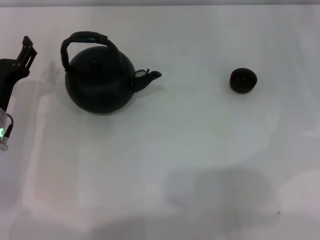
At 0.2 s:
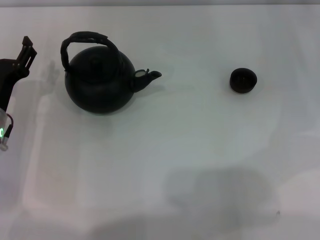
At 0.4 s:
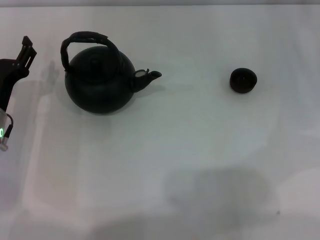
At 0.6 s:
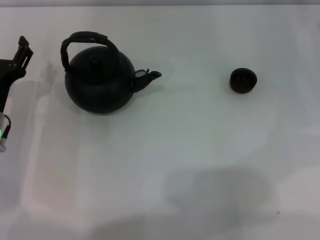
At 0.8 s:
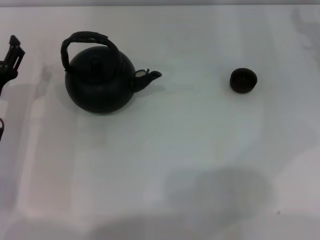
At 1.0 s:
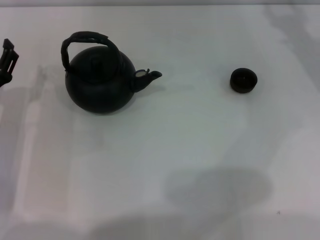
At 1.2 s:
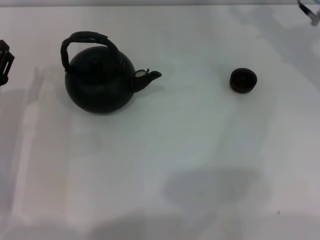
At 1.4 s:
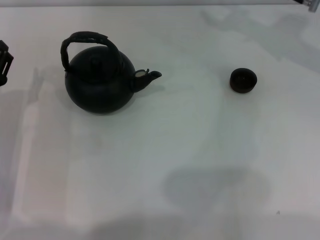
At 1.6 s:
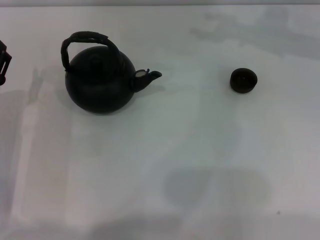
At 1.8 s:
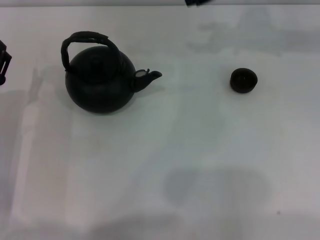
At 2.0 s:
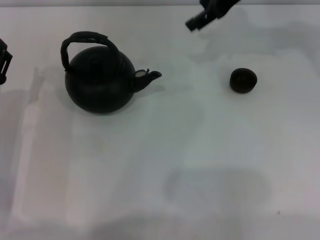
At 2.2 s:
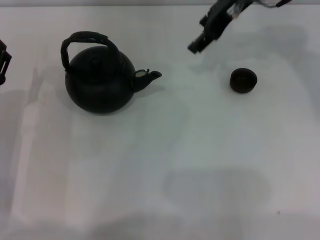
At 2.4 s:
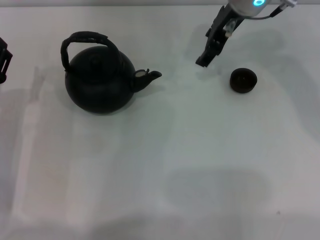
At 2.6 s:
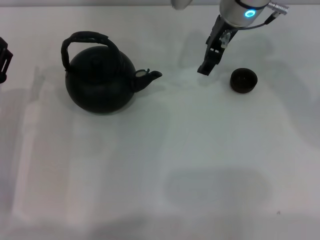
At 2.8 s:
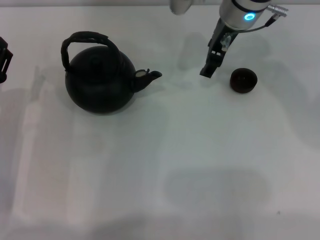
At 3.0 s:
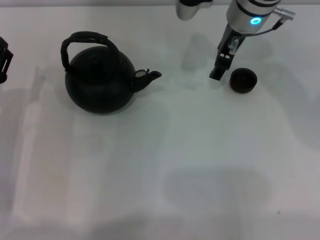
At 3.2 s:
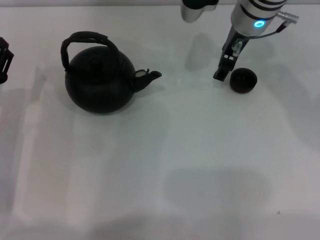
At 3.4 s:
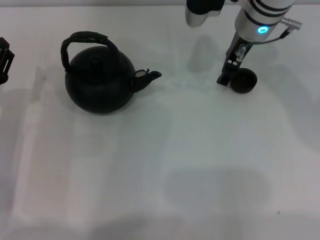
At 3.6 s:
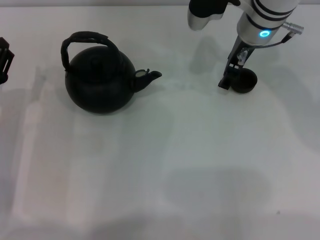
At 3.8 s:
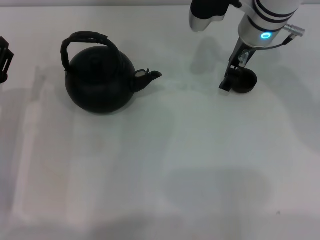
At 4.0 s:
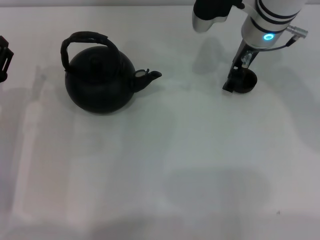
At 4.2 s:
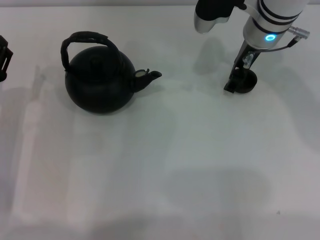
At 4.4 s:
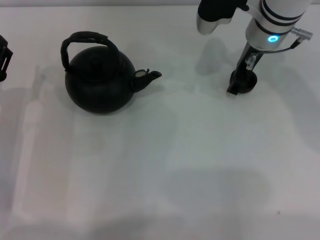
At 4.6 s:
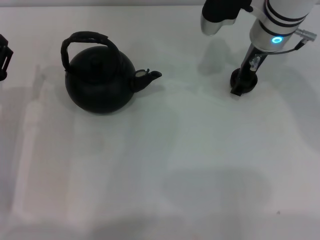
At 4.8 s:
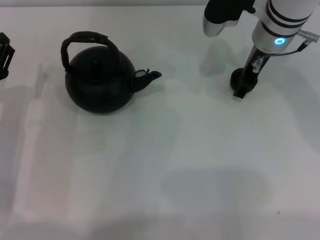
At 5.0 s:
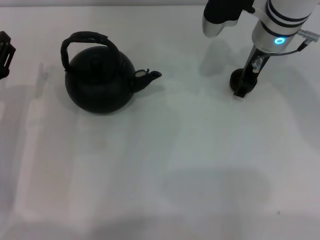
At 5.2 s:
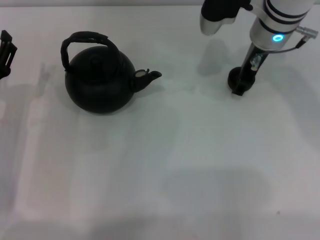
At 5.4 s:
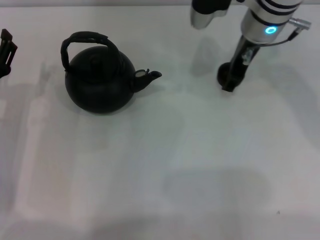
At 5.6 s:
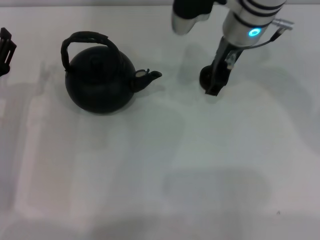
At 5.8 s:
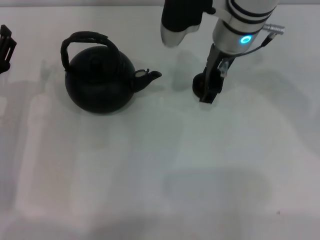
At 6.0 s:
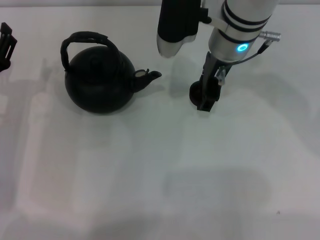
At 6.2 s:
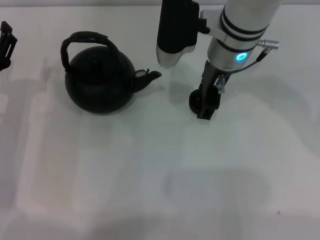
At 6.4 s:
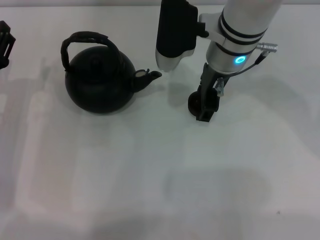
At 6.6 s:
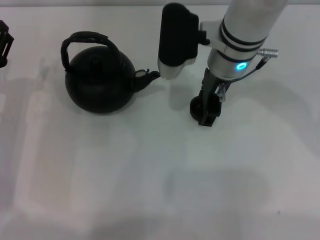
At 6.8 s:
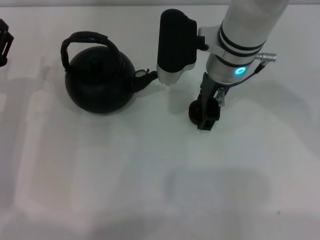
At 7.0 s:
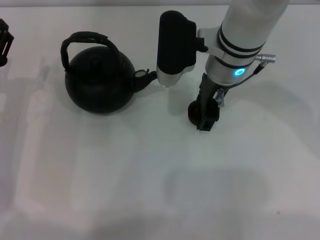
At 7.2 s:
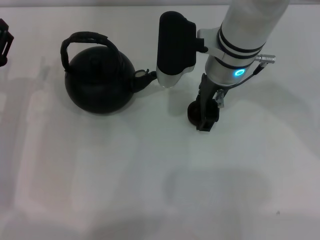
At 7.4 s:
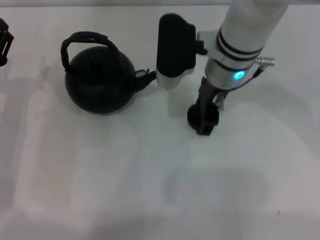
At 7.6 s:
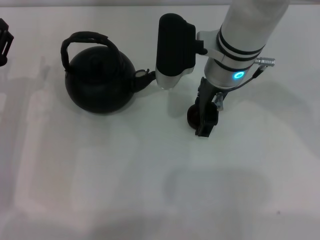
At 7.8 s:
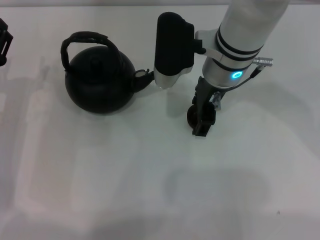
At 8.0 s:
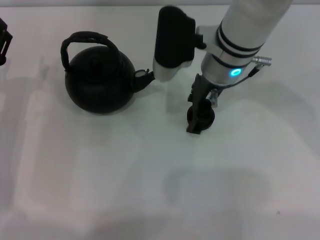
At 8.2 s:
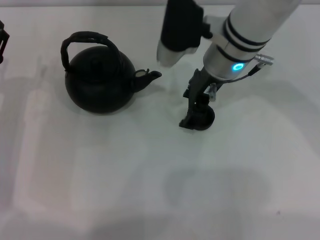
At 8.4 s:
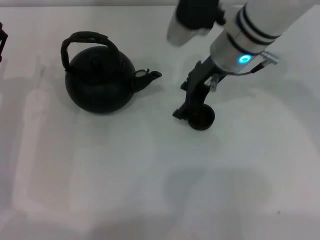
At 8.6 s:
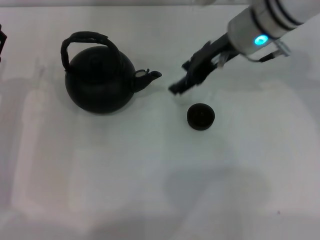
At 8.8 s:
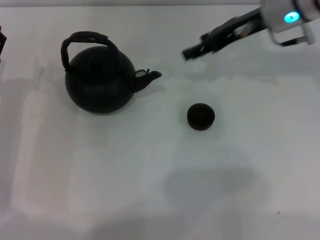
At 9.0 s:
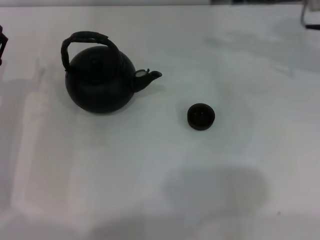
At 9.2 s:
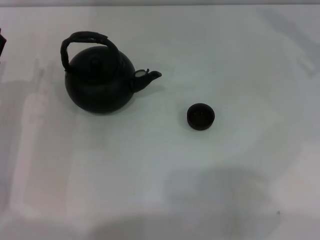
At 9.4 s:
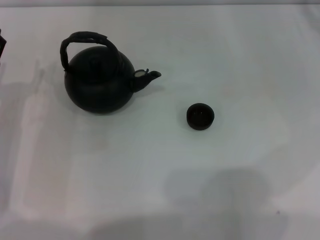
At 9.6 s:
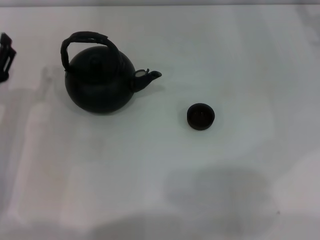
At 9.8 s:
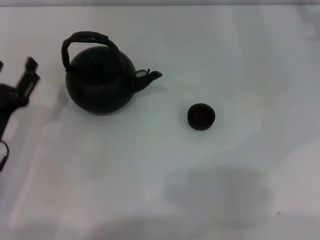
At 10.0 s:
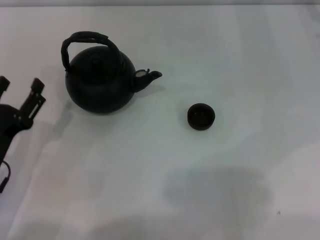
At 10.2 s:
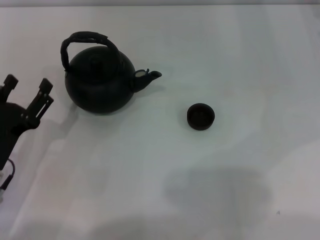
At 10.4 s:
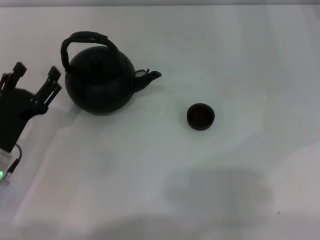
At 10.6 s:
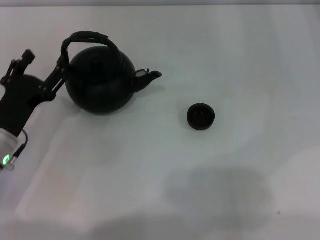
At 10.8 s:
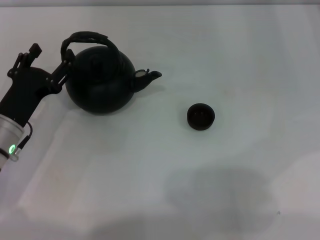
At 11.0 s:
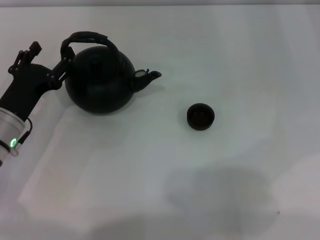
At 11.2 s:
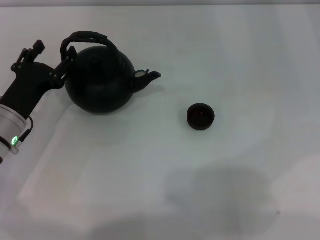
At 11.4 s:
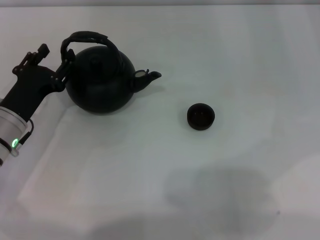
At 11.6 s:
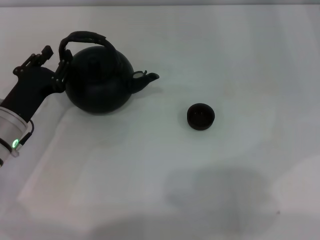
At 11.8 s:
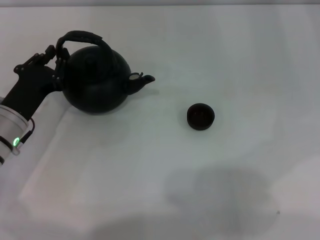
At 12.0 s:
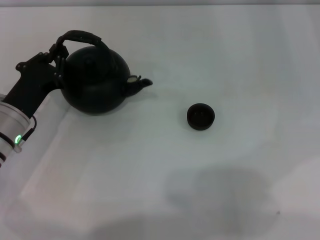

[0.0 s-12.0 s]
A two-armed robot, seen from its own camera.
Task of the whole recording: Grasp the handle of the teapot with one hand and pour tea into the teacup.
Step, 0.0 to 5.2 s: Pick up the teacup with the right gripper.
Step, 5.4 to 8.4 s: Place the teacup in the center of view with the right gripper.
1.6 to 3.0 s: The right gripper travels to the left by some 10 cm.
3.0 to 4.4 s: The grippers move only a little.
4.4 to 6.0 s: The right gripper is displaced to the left by approximately 5 cm.
6.0 to 7.6 s: The grippers stay close to where they were, moving slightly.
7.6 to 9.0 s: The right gripper goes some 15 cm to the right.
9.0 to 10.4 s: The left gripper heads backward, covering roughly 5 cm, while the right gripper shifts roughly 10 cm to the right and downward.
10.4 to 12.0 s: The left gripper heads forward, covering about 5 cm, and closes up.

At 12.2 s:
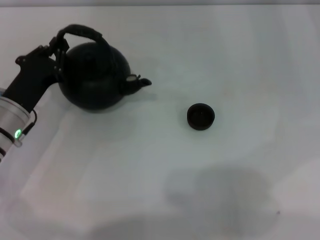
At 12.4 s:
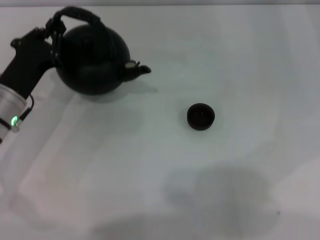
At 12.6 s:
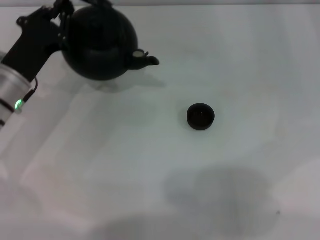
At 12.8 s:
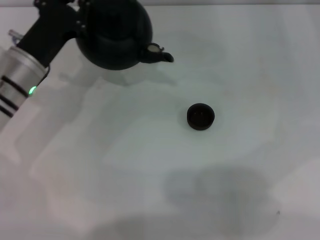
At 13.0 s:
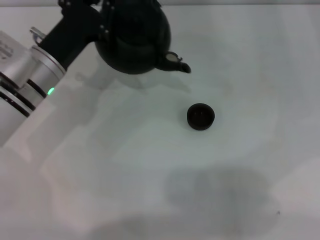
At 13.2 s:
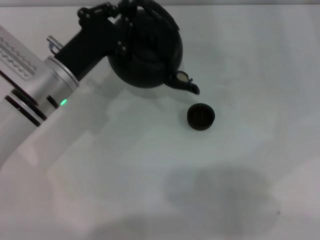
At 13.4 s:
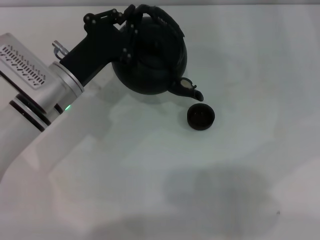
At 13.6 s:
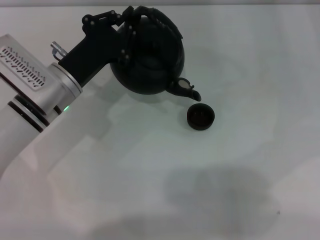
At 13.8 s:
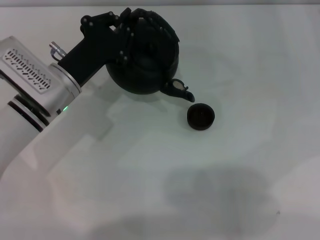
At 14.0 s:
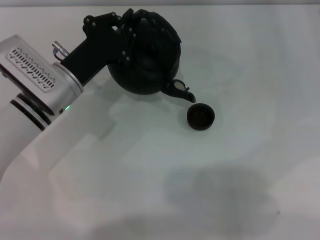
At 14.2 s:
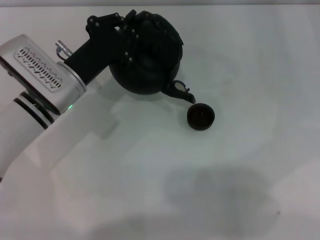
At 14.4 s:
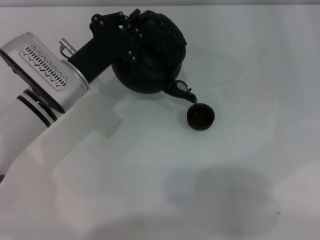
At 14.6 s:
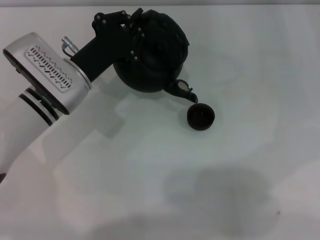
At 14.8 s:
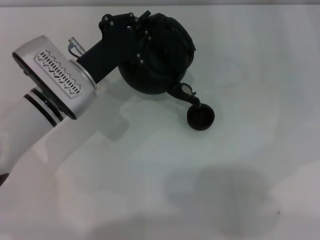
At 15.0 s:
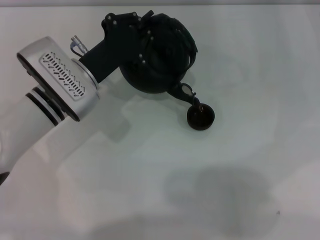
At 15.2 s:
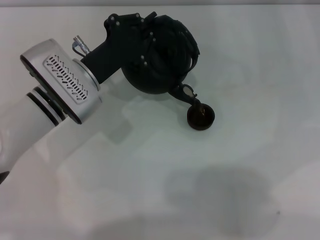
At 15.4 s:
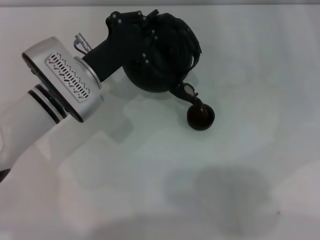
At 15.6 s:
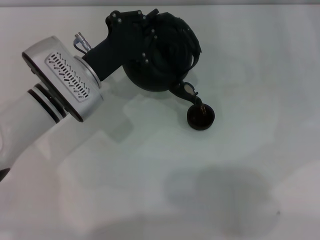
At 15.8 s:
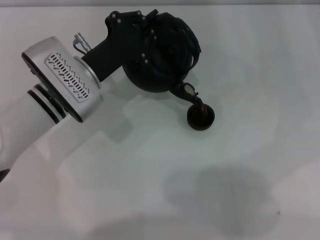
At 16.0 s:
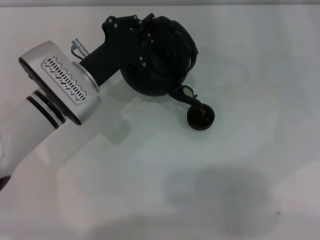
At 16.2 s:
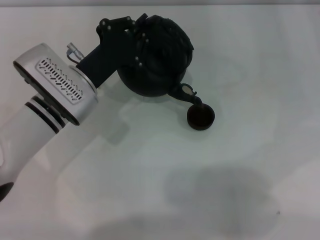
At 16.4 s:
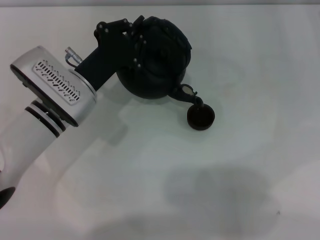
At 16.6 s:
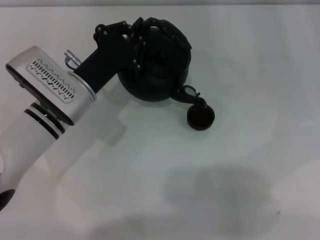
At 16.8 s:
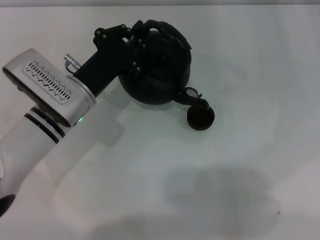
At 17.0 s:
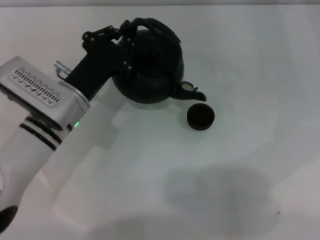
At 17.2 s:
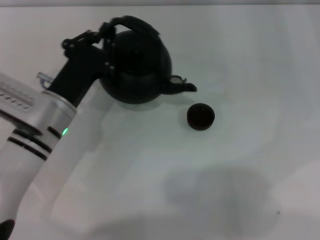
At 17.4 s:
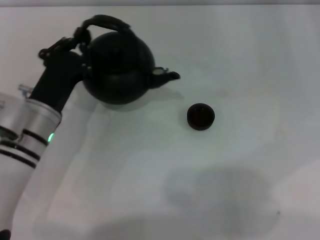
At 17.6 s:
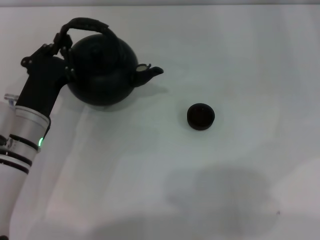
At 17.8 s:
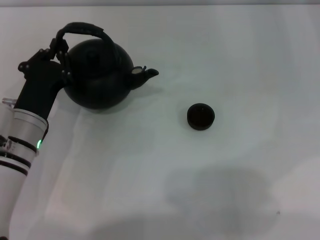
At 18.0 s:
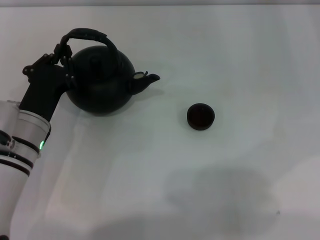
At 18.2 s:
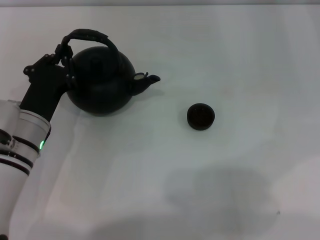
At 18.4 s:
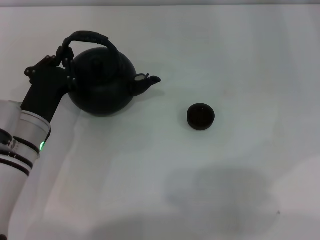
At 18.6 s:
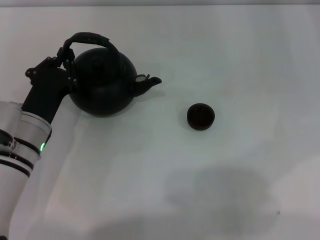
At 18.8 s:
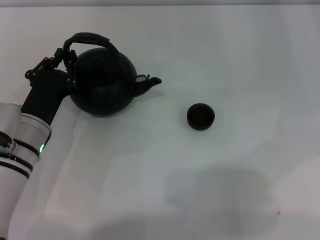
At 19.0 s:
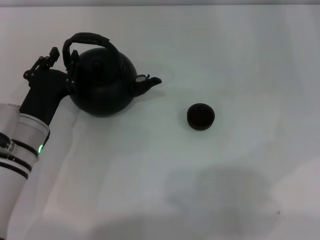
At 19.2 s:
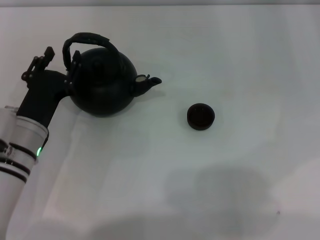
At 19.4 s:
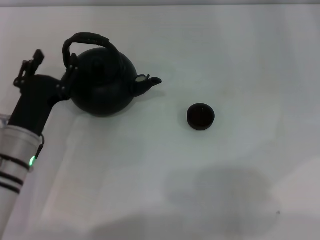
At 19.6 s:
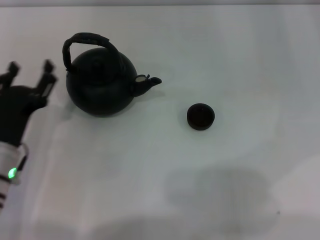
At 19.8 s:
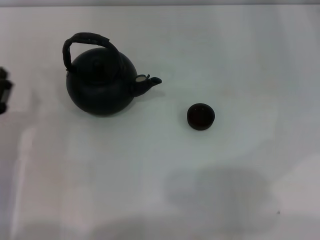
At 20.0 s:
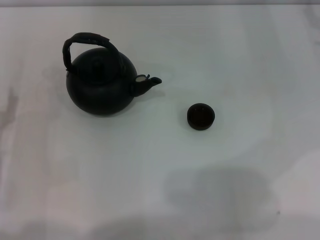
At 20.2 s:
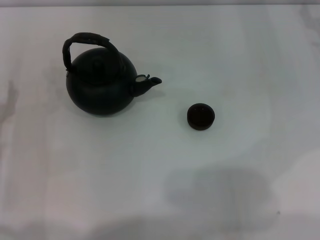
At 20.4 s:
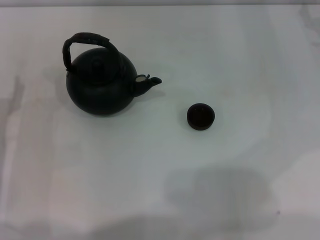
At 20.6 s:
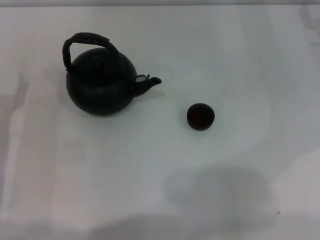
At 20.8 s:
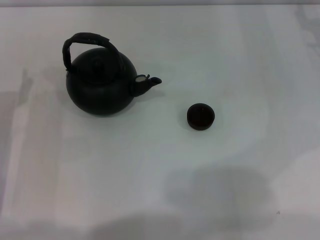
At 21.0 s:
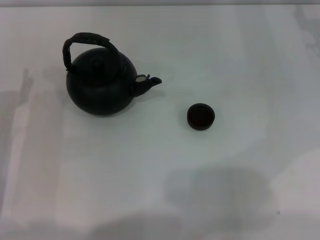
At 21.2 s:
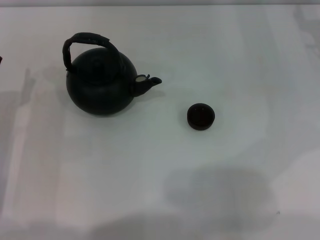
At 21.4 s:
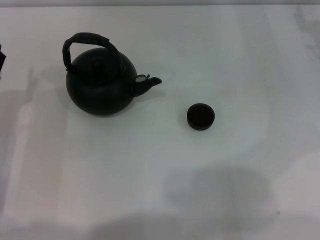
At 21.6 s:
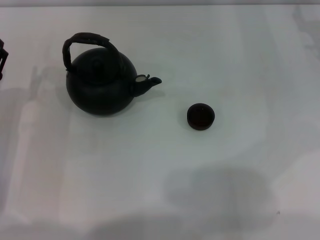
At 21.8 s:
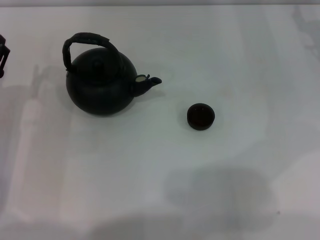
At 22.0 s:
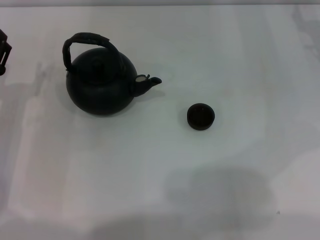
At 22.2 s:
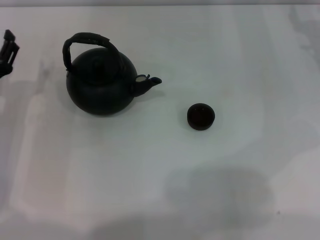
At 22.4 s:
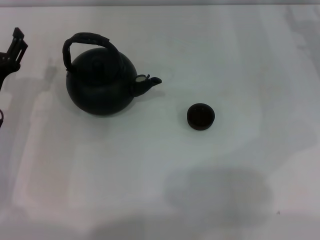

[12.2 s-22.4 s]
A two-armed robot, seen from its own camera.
Task of the whole recording: Grasp the handle of the teapot with one hand and pour tea into the teacup.
Step, 13.0 to 17.4 s: Pour tea into the teacup with the left gripper.
Step, 17.6 to 19.4 s: Put down the teapot with the left gripper.
12.2 to 13.6 s: The left gripper goes about 5 cm to the right.
13.6 to 16.6 s: The grippers make only small movements.
16.6 to 18.0 s: The left gripper travels to the left by approximately 5 cm.
18.0 to 19.4 s: The left gripper opens.
19.4 to 21.0 s: The left gripper heads to the left, covering approximately 10 cm.
21.0 to 22.4 s: The grippers move only a little.
